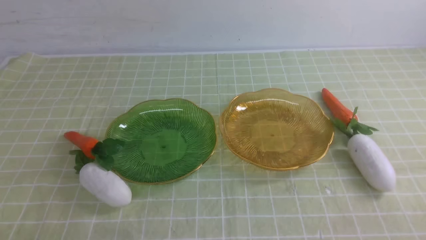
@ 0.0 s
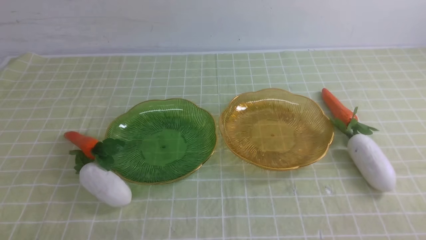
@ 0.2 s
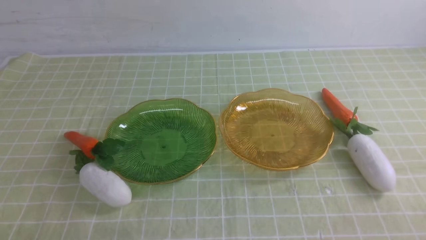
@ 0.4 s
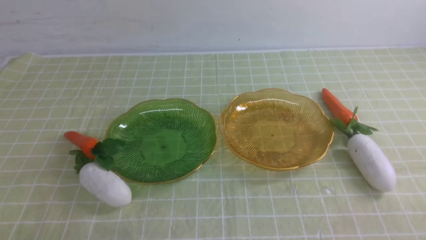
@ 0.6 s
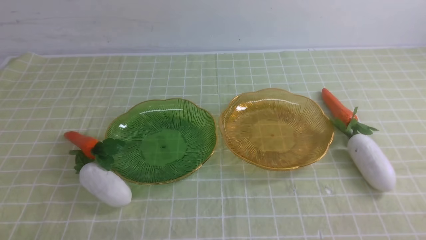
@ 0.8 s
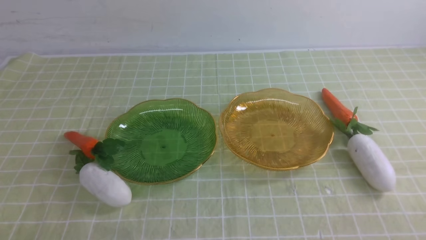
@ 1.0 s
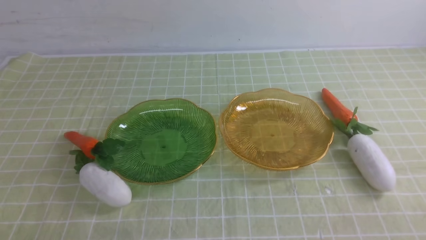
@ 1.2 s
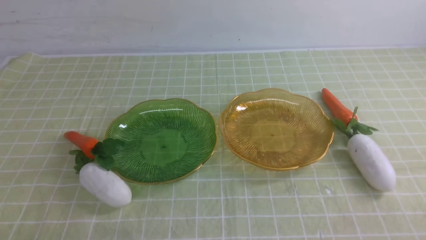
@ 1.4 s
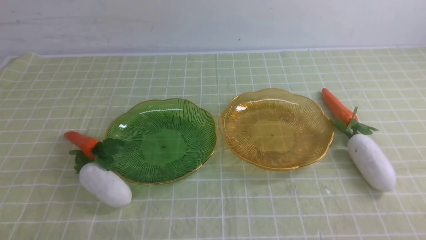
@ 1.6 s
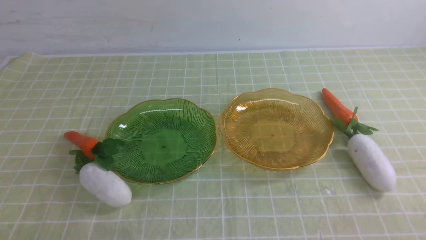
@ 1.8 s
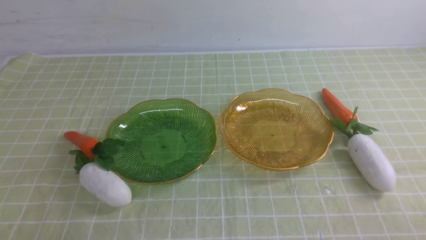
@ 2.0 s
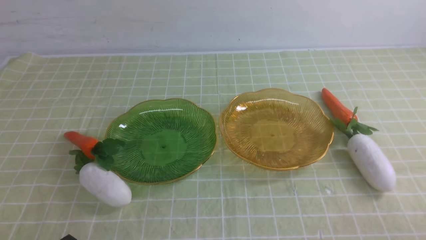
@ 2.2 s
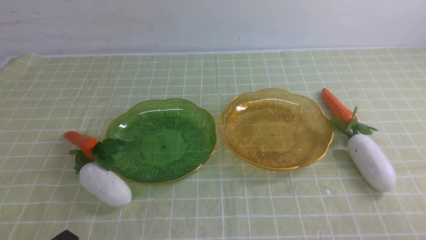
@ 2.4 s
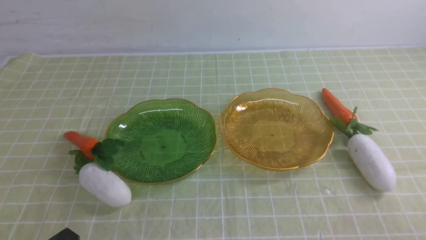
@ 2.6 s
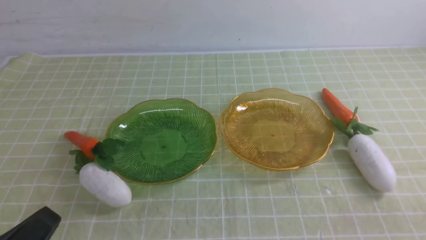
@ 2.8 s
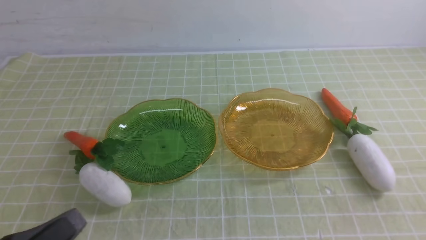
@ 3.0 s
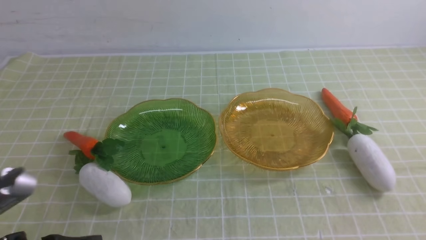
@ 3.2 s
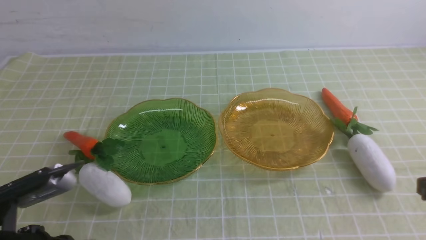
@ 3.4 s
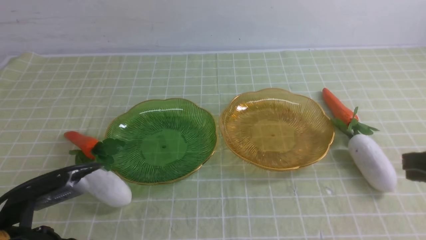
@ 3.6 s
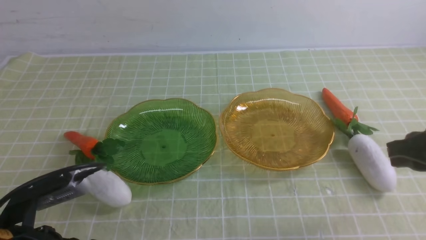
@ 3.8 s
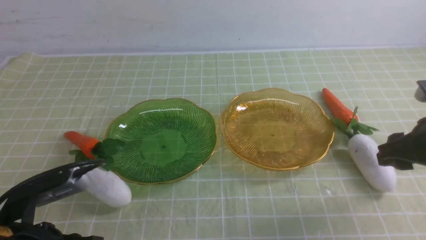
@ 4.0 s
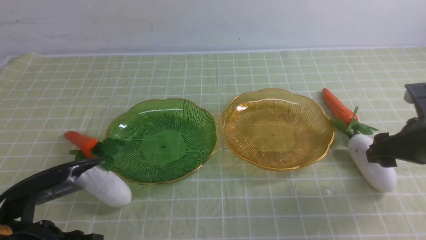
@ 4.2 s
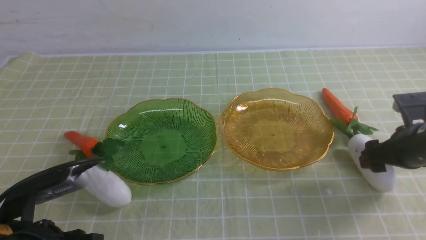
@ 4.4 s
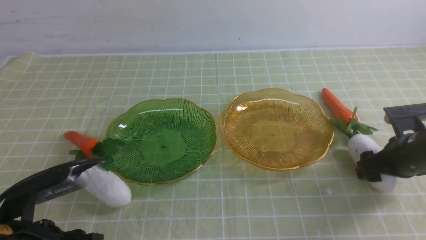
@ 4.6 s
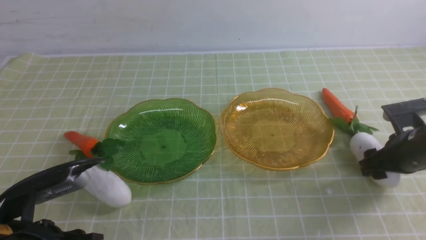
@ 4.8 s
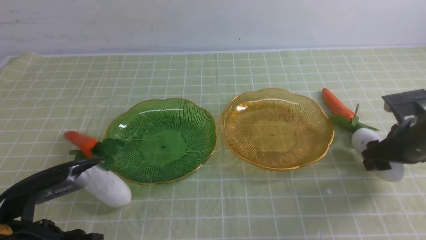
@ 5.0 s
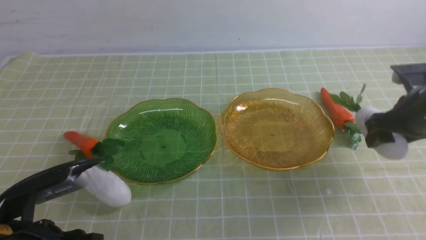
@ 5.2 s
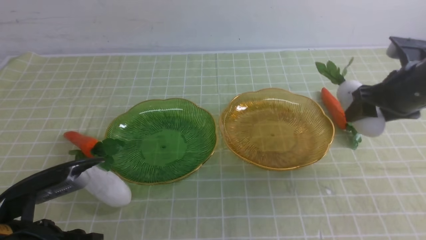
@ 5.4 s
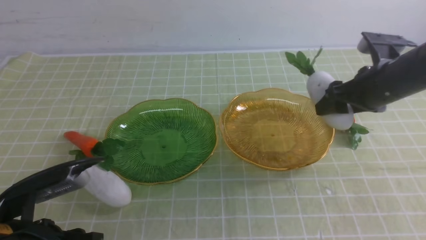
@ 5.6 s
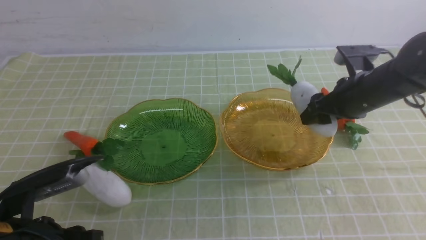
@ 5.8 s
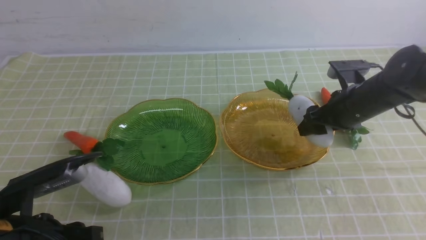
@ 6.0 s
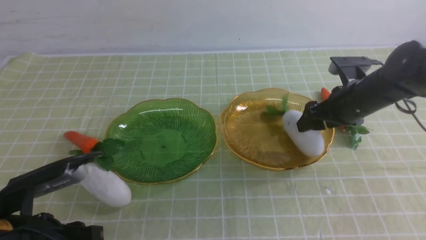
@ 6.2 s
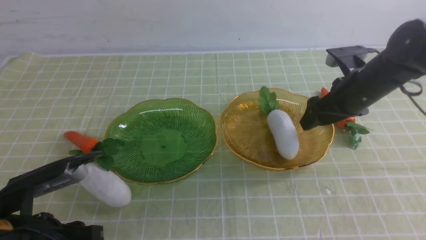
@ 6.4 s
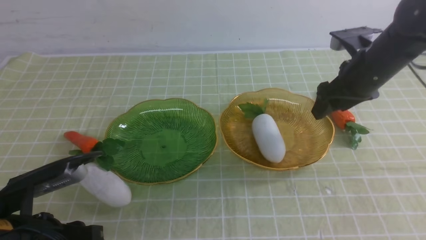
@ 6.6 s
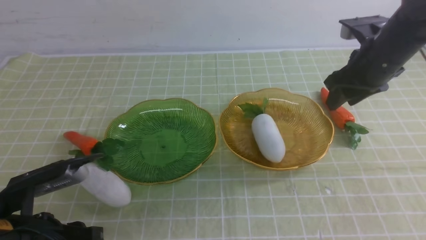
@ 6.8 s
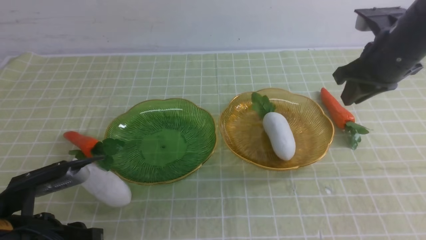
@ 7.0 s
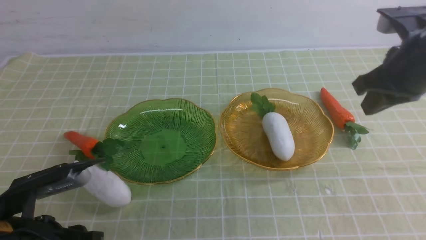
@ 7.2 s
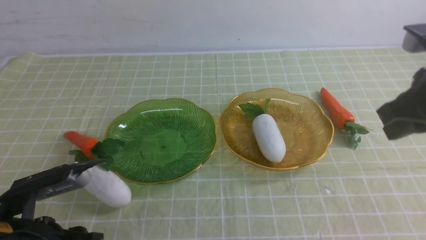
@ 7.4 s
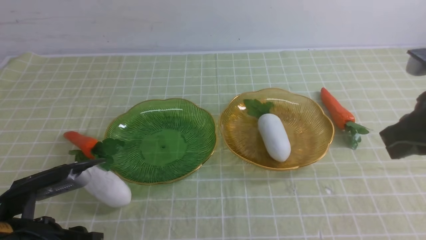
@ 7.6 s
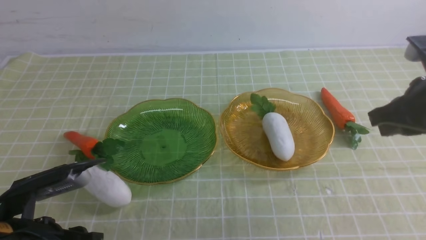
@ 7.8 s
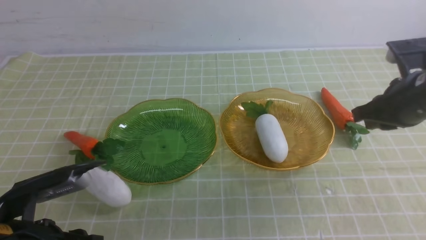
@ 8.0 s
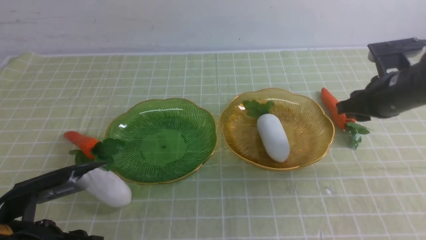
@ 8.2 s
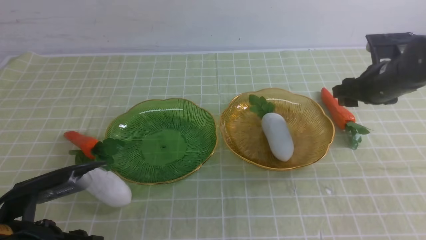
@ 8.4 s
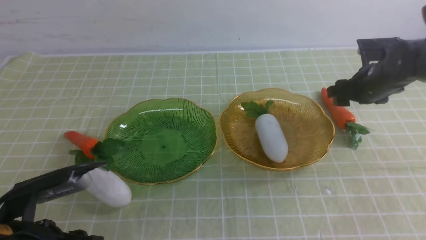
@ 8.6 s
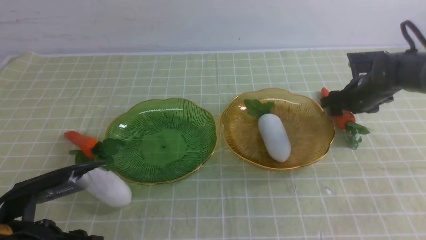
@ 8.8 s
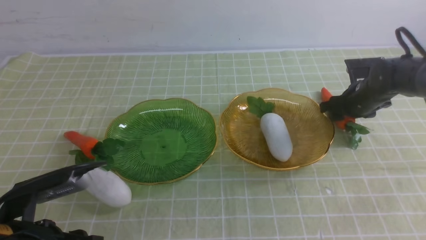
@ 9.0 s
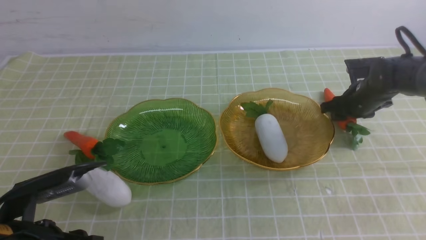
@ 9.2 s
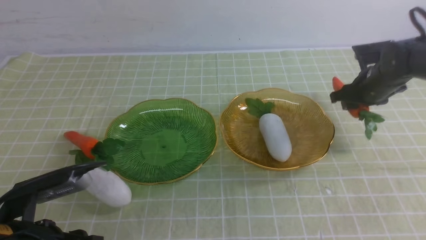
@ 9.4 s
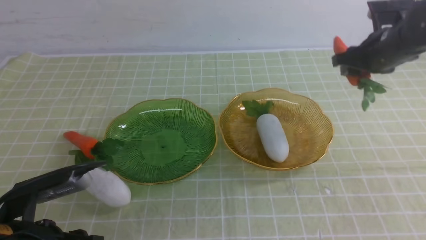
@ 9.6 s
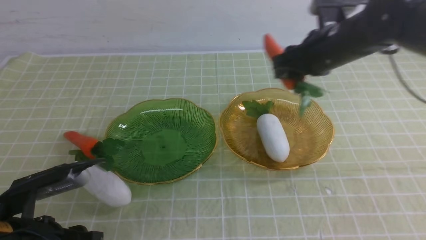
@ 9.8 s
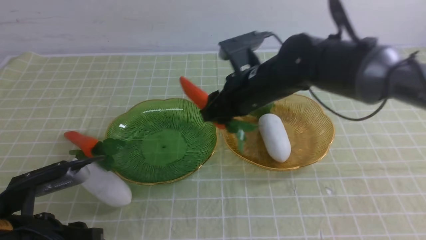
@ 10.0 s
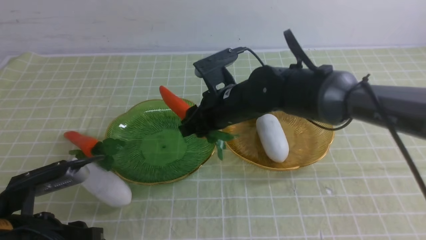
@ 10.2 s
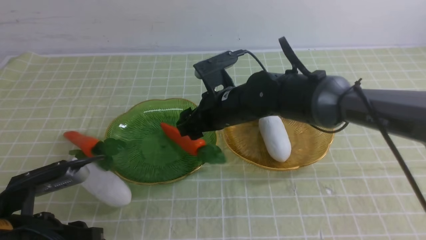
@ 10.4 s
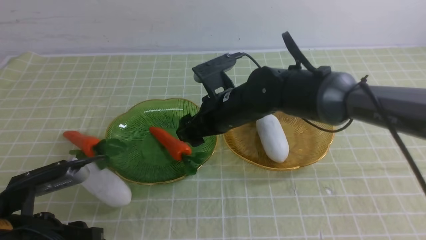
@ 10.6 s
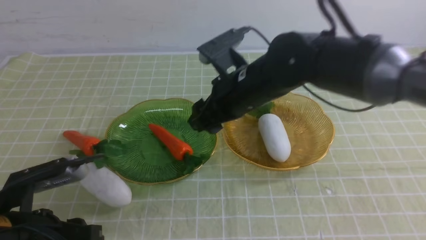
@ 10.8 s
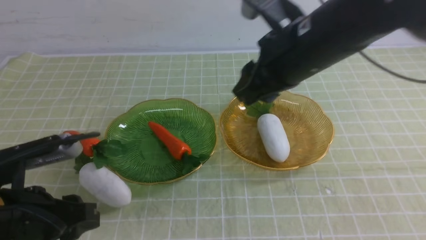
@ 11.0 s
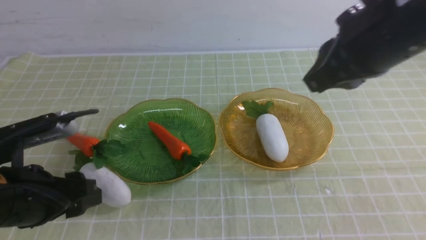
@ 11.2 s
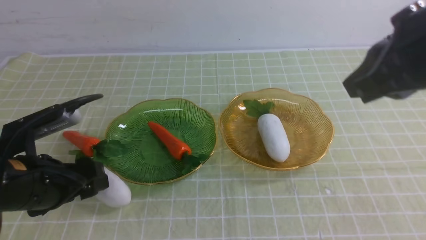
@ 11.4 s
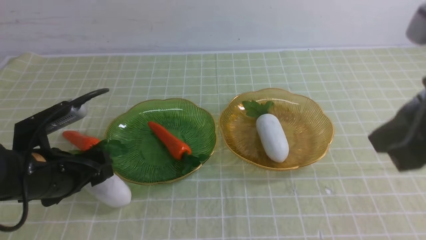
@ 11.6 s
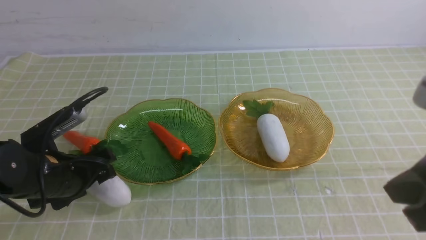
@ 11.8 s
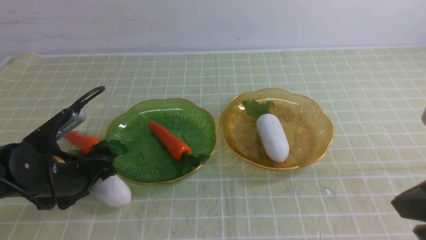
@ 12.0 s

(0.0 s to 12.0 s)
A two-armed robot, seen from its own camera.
Step, 0.0 s - 6.4 s: use the right arm to grab a radish and put it into the right plate.
0.0 s - 1.6 s: Both grippers stay about where they are.
1.6 s - 3.0 s: The left gripper goes some 10 cm upward.
3.0 s - 4.4 s: The left gripper heads forward, covering some 5 cm, and opens its fingers, while the right gripper travels forward and downward by about 25 cm, and opens up.
4.4 s - 6.0 s: The right gripper shifts approximately 10 cm forward and to the left, and goes upward and returns, roughly 5 cm each way.
6.0 s - 7.6 s: The right gripper goes roughly 15 cm backward and upward, and closes its fingers.
7.6 s - 9.0 s: The right gripper goes some 25 cm forward and downward, and opens its fingers.
9.0 s - 10.4 s: The right gripper moves to the left, roughly 25 cm.
10.4 s - 12.0 s: The right gripper travels backward, to the right and upward by about 35 cm, and closes up. Meanwhile the left gripper goes approximately 10 cm forward, and opens.

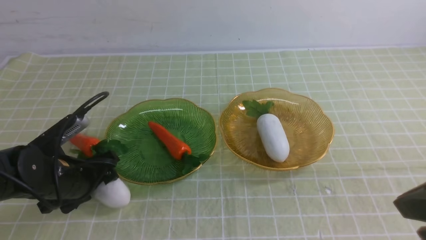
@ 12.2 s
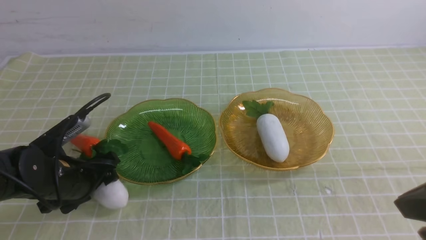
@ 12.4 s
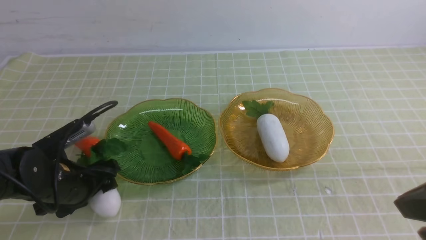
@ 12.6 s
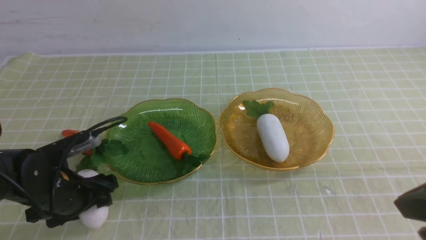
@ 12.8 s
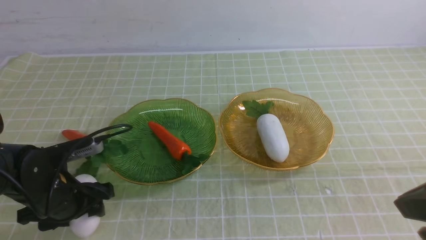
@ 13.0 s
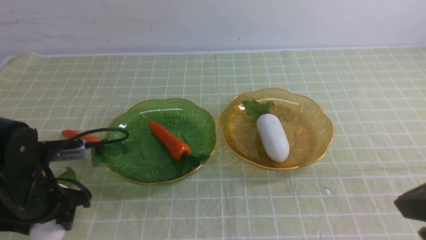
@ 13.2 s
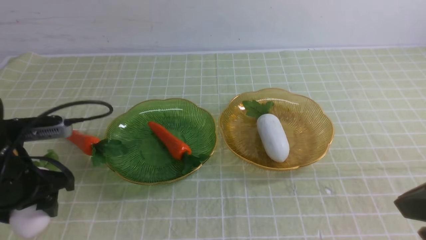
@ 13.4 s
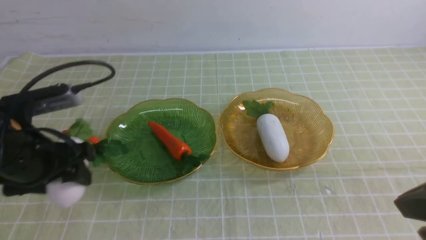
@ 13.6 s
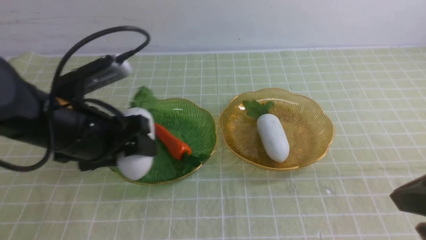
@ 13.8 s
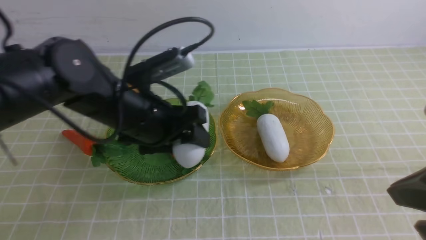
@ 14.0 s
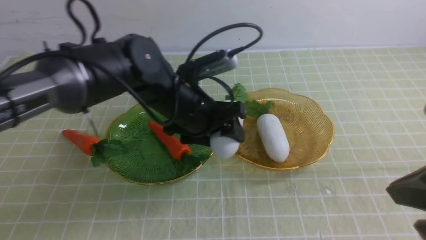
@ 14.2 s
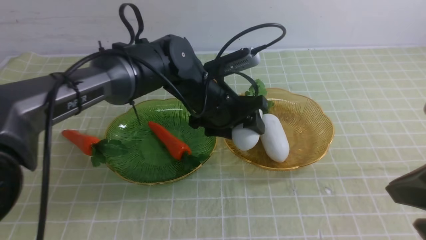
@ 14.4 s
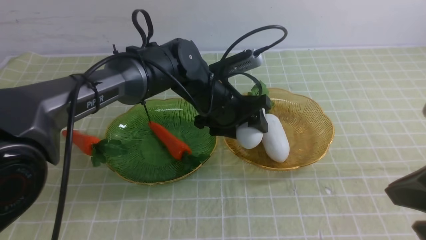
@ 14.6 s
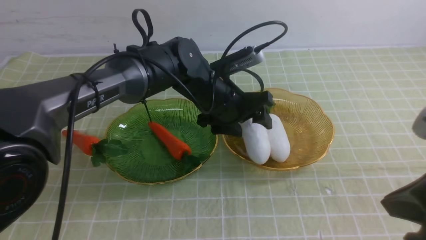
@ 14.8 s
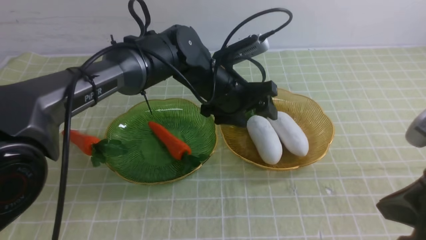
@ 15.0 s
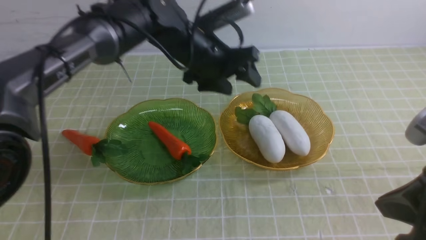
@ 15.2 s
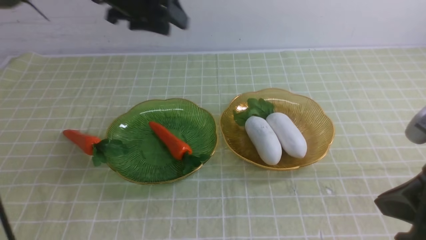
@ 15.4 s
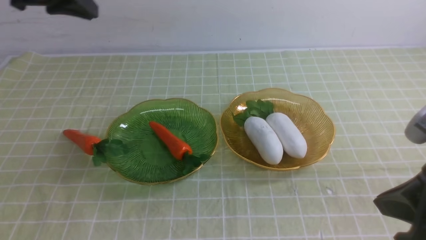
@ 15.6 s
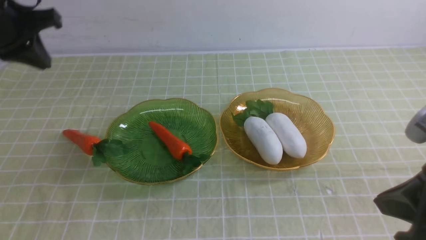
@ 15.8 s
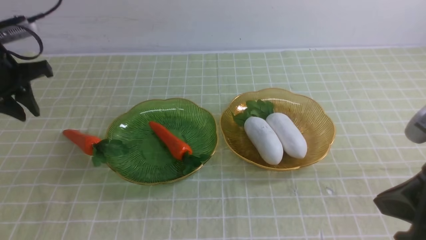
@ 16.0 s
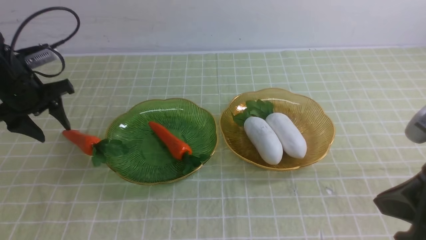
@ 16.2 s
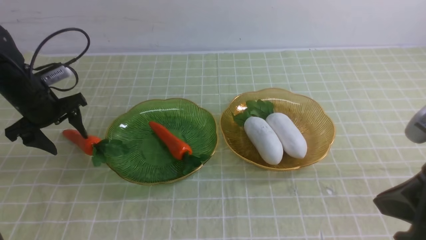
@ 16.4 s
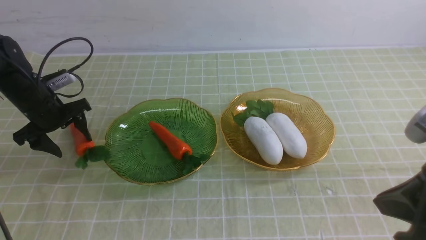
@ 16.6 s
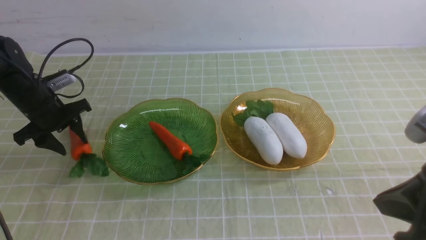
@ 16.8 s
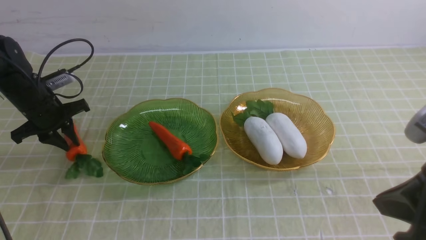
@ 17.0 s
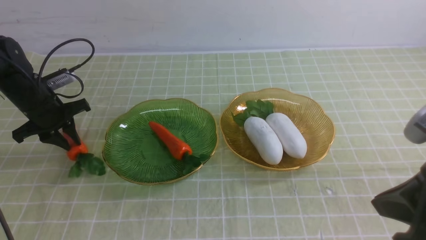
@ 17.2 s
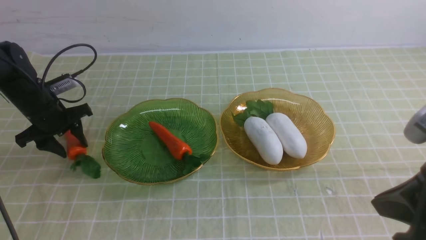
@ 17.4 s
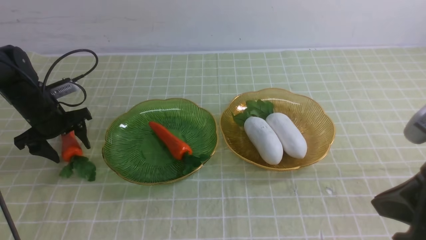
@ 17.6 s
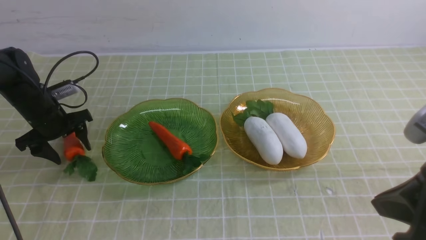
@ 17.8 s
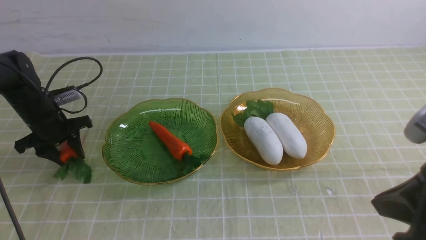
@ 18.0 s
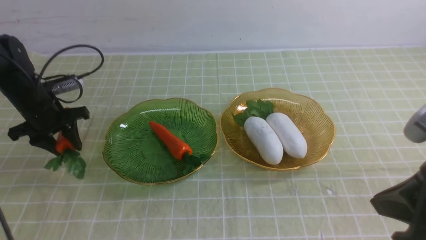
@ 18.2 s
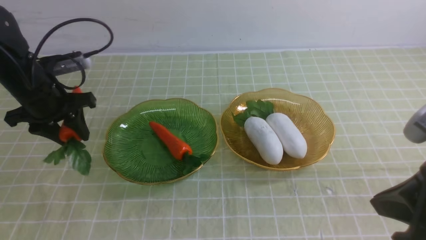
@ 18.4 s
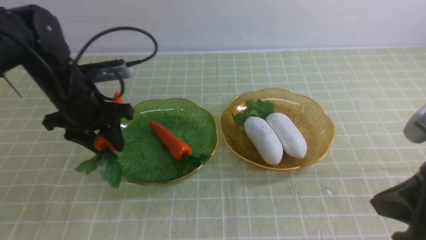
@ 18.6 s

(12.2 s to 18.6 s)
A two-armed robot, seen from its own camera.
Step, 13.6 s - 16.2 s: use the left arm to grab a radish and put it into the right plate.
12.2 s - 13.8 s: The left gripper goes about 15 cm upward and to the right.
13.8 s - 15.4 s: The left gripper travels forward and upward by about 20 cm, reaches roughly 15 cm to the right, then returns, and closes.
15.4 s - 17.0 s: The left gripper is displaced downward and to the left by approximately 25 cm, and opens, then closes once more.
17.0 s - 18.6 s: The left gripper heads to the right, upward and backward, covering some 15 cm.
